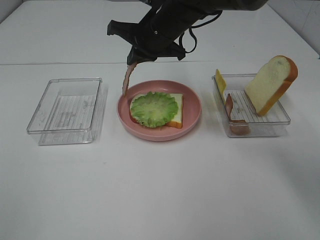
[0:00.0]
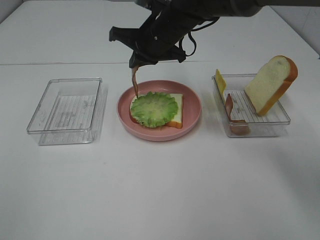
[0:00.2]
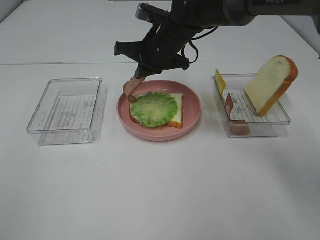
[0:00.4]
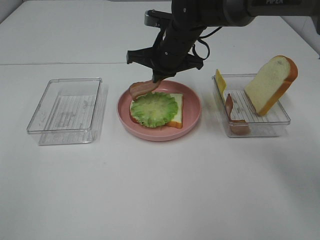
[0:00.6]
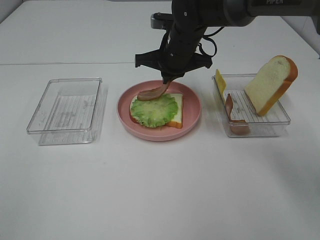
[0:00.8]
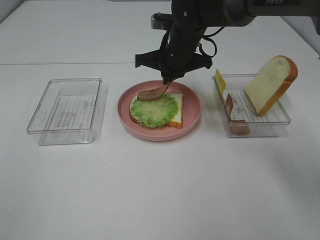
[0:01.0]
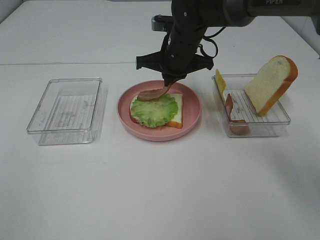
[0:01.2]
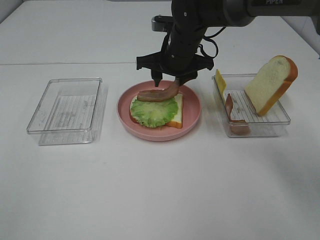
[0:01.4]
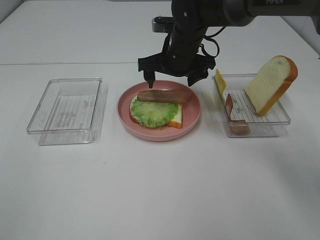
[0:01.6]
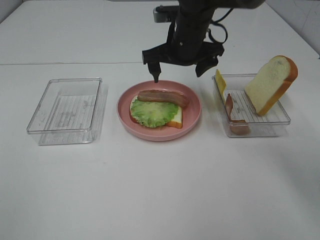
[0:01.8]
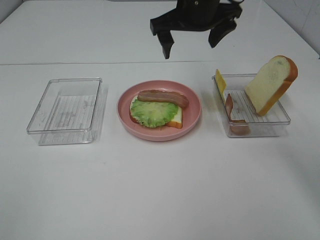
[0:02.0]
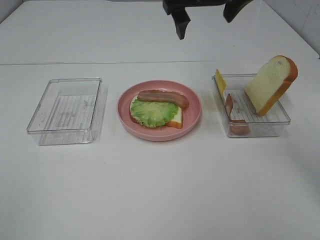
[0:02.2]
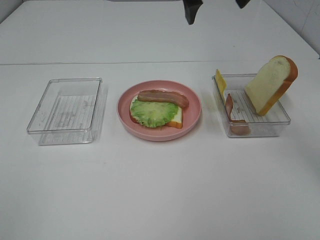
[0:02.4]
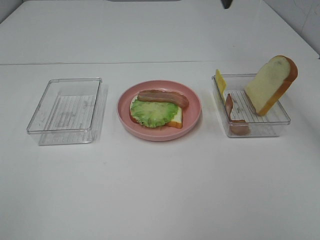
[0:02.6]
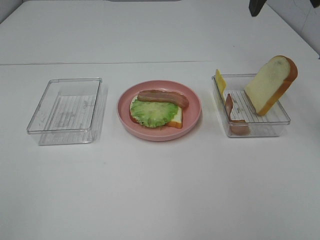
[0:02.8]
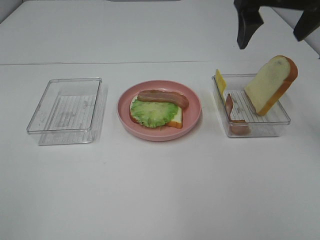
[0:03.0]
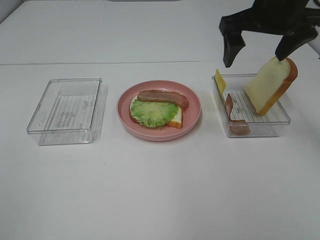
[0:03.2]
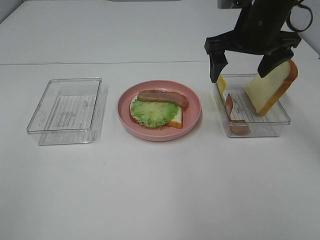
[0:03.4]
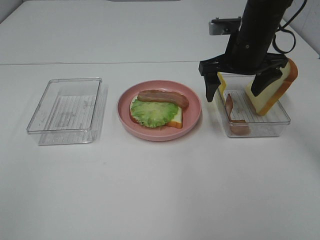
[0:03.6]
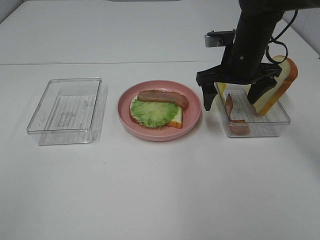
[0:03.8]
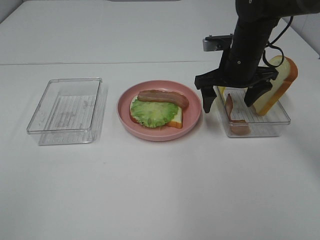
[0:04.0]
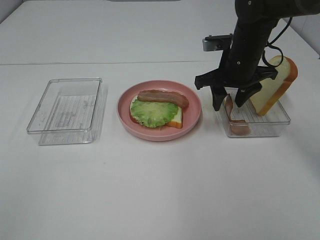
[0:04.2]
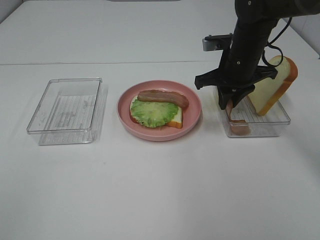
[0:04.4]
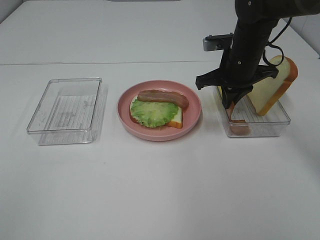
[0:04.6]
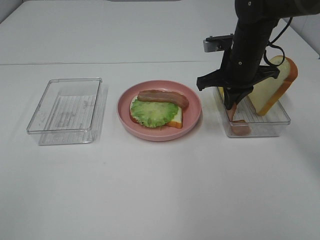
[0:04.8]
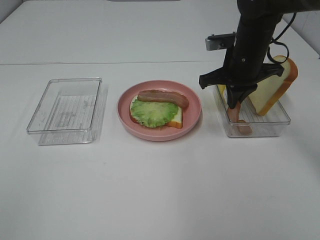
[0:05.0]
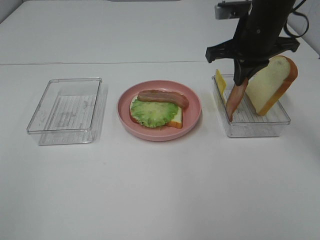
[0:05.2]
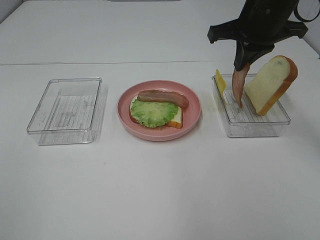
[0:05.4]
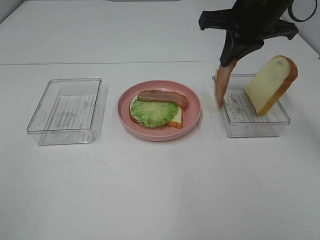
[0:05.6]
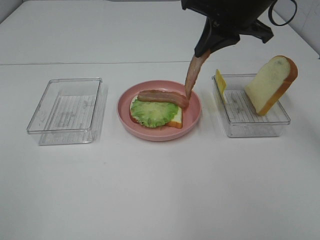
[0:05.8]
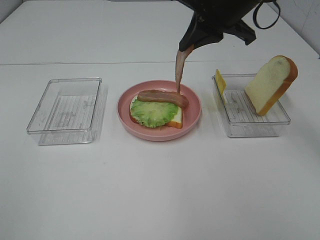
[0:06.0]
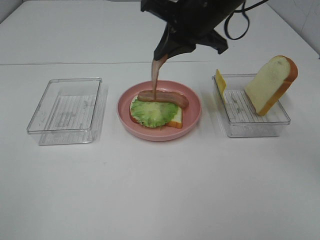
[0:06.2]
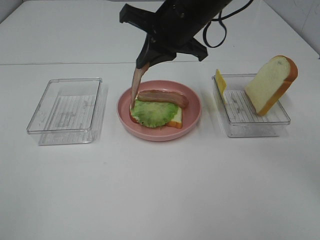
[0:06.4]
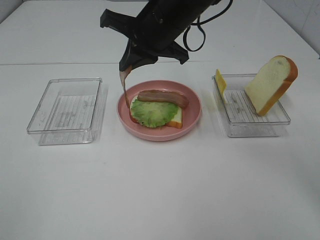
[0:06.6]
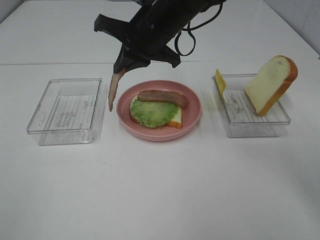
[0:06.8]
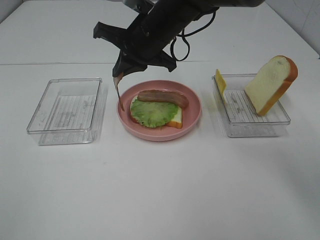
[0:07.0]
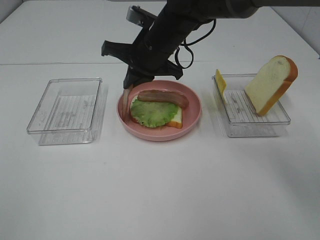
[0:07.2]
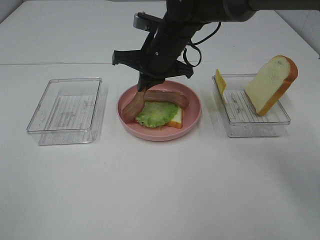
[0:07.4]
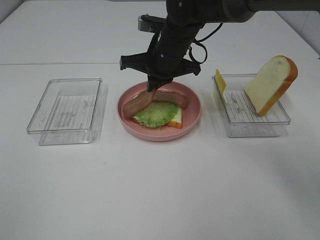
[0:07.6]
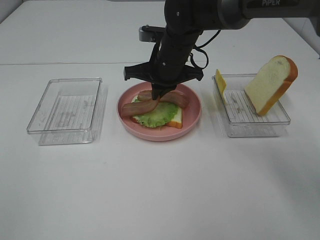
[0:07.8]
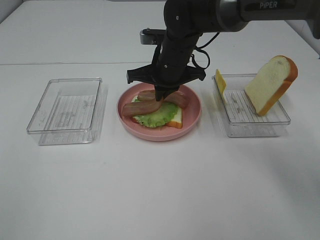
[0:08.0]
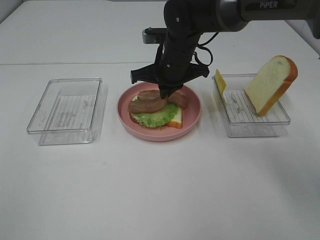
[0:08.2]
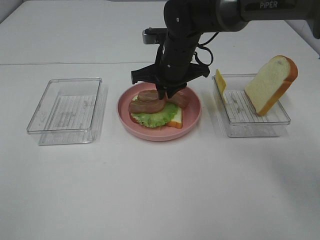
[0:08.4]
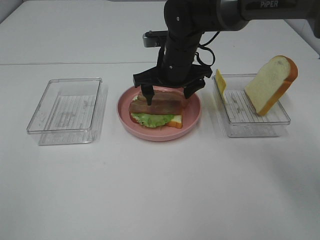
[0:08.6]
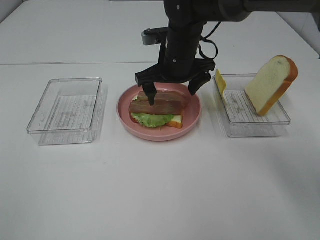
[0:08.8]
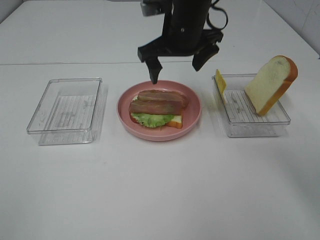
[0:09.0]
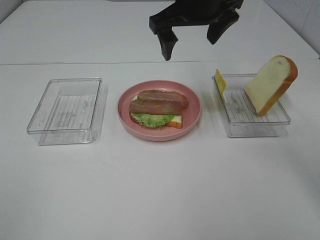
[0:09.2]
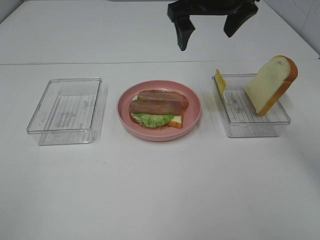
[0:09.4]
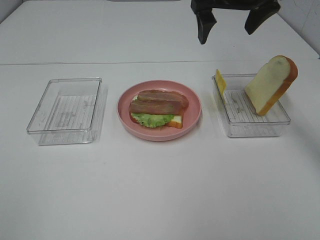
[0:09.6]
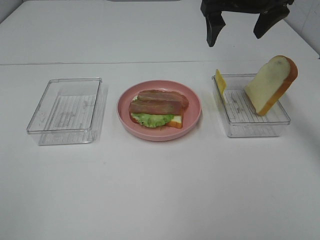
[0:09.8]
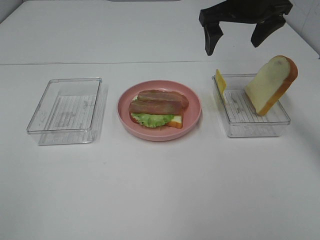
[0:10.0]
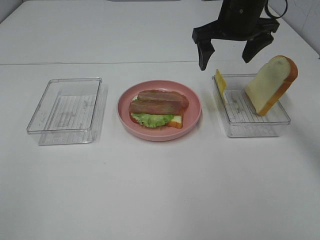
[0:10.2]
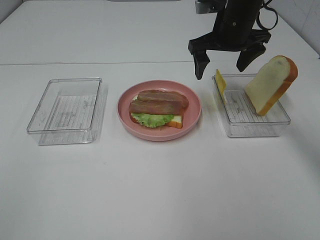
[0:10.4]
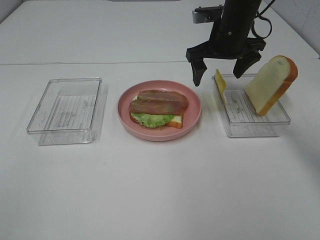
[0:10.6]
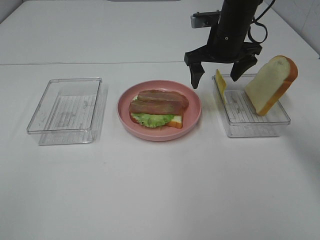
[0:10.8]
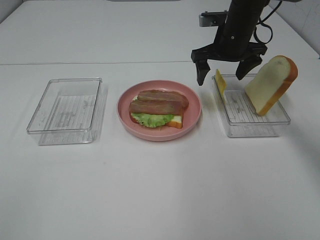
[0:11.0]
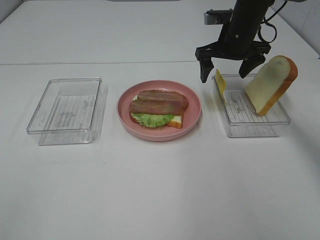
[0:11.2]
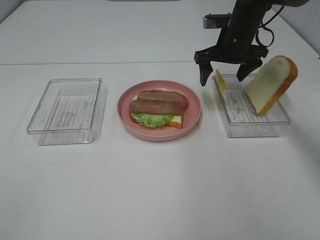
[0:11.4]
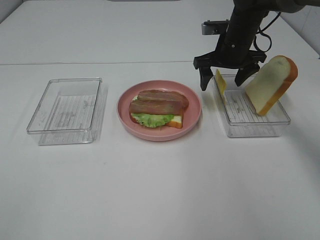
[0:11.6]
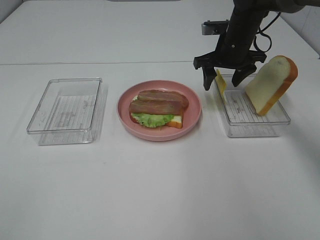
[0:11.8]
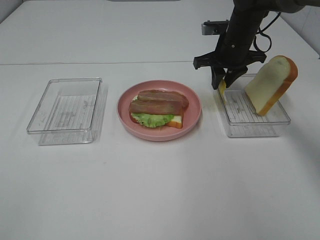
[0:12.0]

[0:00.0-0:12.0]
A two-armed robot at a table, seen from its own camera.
Task of the whole recording: Make sandwiches.
Step, 0:01.8 to 0:04.8: Right hand:grab the bacon.
Step, 0:05.0 to 0:09.4: Right hand:place bacon on bacon.
0:00.0 to 0:01.6: The right gripper ends up some 5 cm from where it was, and opens up.
0:01.6 to 0:03.0: The right gripper shifts some 25 cm upward, to the right and backward.
0:03.0 to 0:04.4: The right gripper shifts approximately 15 cm downward, and closes up.
0:04.4 to 0:06.0: The right gripper travels upward by about 10 cm.
0:06.0 to 0:07.6: The right gripper travels downward and to the left by roughly 15 cm.
0:07.6 to 0:09.0: The right gripper heads upward, covering approximately 5 cm, and opens up.
0:09.0 to 0:10.4: The right gripper heads to the right, covering some 10 cm.
0:10.4 to 0:12.0: The right gripper shifts some 5 cm downward, and closes its fingers.

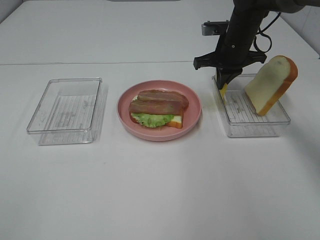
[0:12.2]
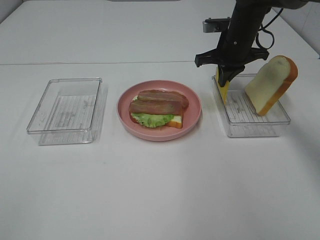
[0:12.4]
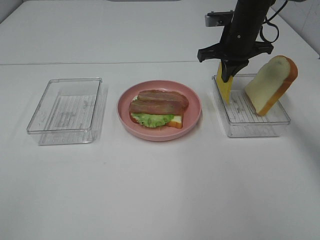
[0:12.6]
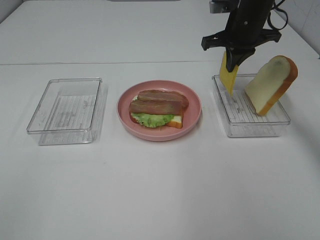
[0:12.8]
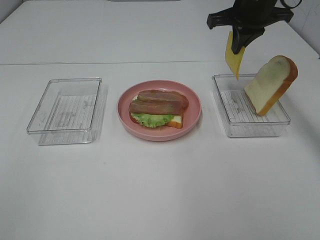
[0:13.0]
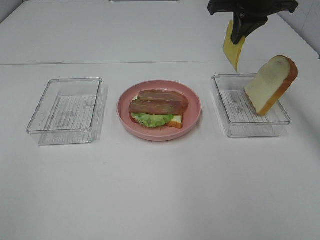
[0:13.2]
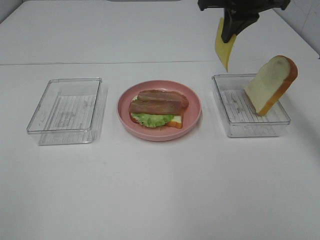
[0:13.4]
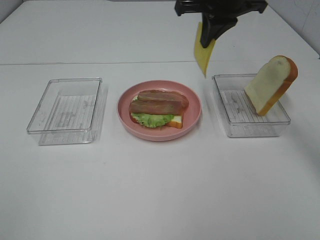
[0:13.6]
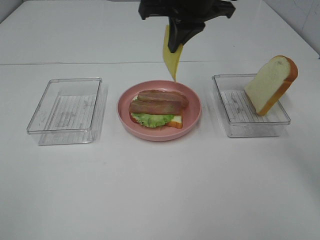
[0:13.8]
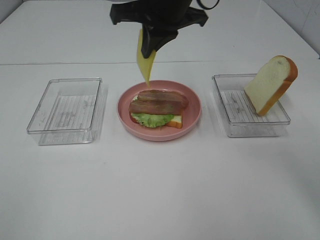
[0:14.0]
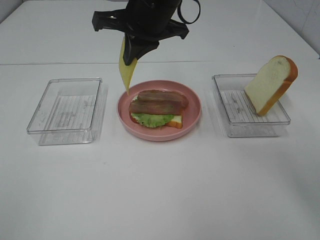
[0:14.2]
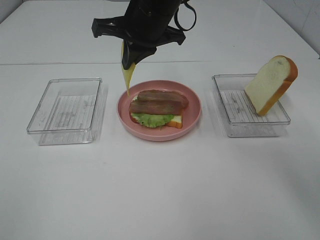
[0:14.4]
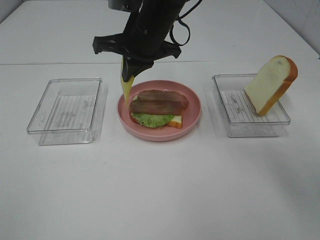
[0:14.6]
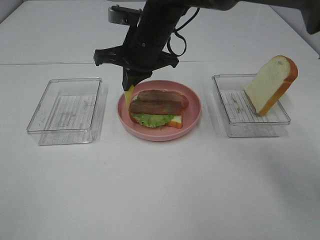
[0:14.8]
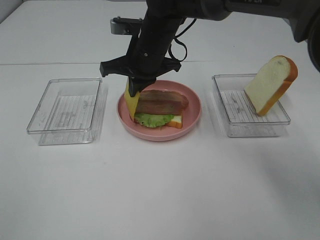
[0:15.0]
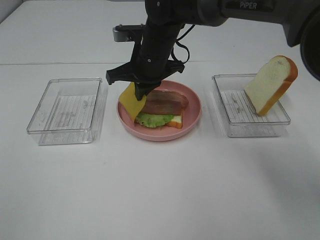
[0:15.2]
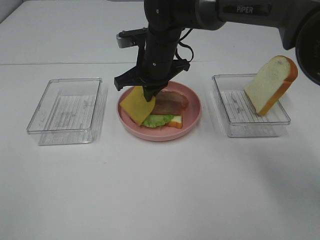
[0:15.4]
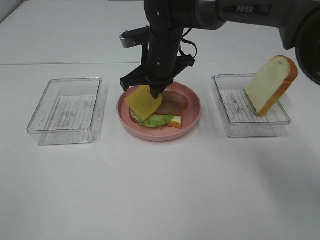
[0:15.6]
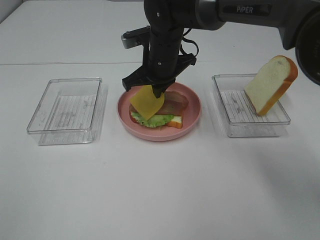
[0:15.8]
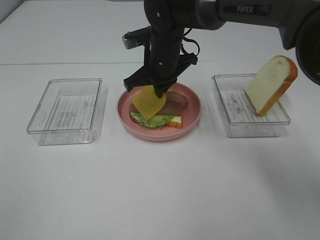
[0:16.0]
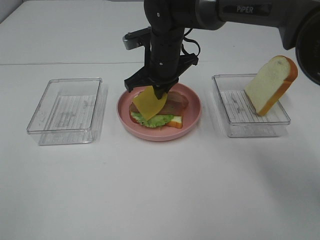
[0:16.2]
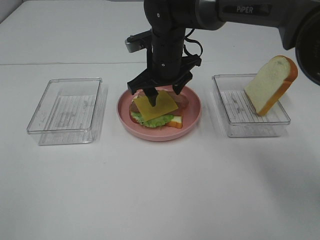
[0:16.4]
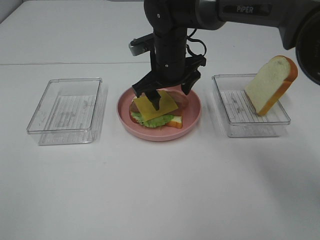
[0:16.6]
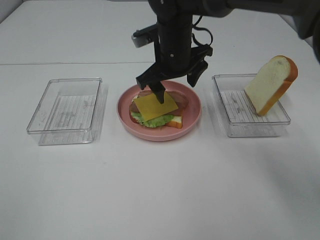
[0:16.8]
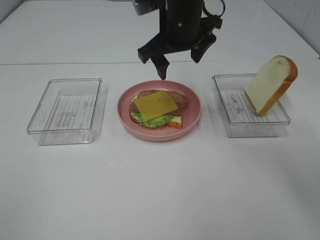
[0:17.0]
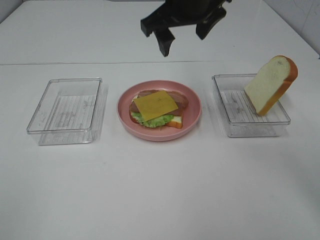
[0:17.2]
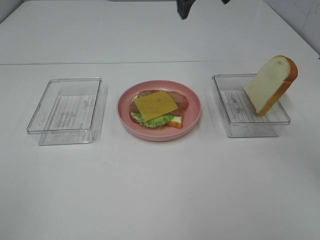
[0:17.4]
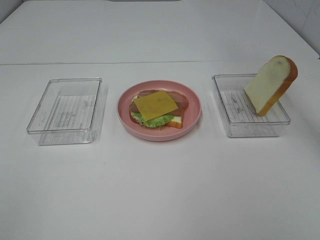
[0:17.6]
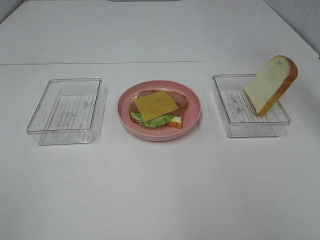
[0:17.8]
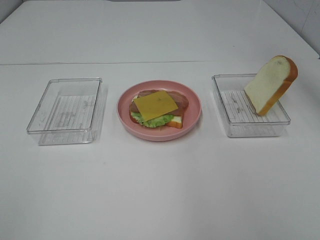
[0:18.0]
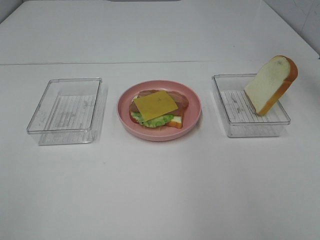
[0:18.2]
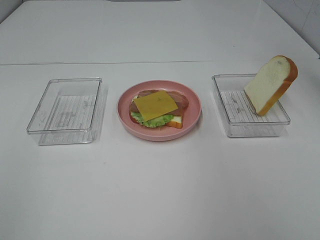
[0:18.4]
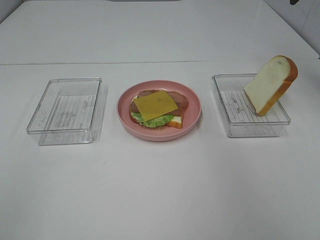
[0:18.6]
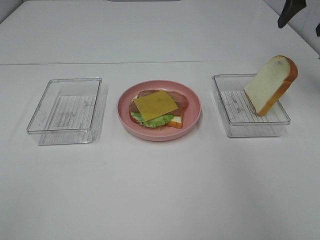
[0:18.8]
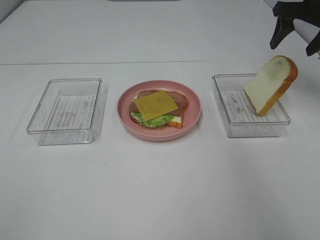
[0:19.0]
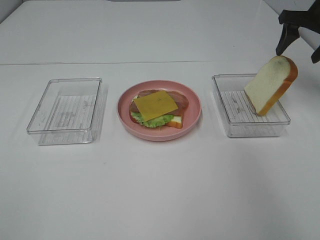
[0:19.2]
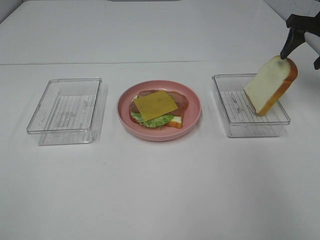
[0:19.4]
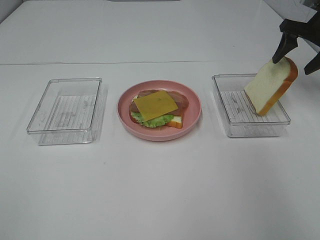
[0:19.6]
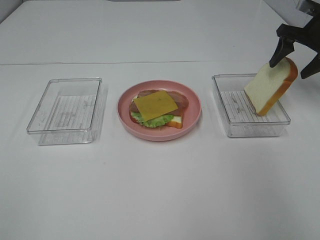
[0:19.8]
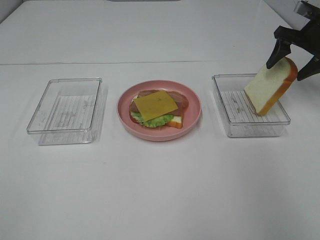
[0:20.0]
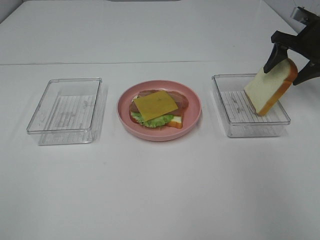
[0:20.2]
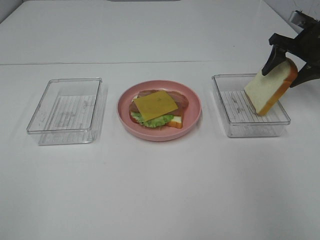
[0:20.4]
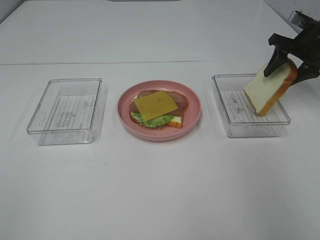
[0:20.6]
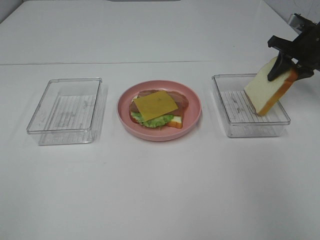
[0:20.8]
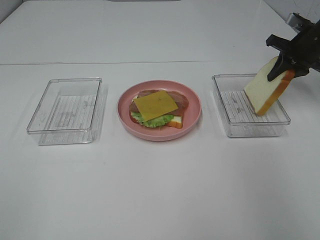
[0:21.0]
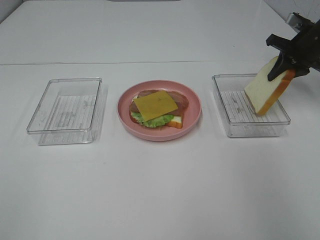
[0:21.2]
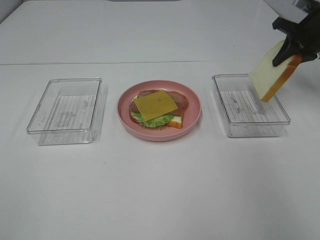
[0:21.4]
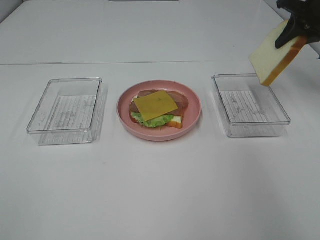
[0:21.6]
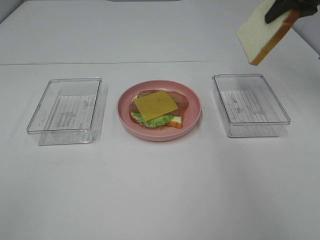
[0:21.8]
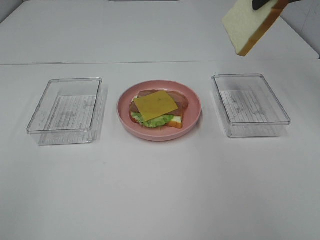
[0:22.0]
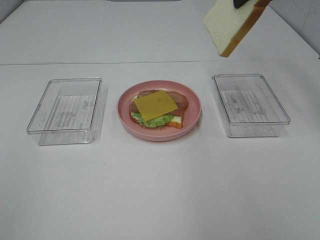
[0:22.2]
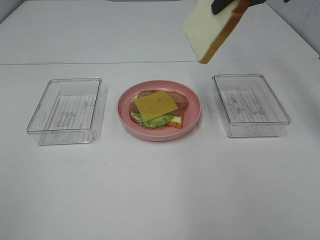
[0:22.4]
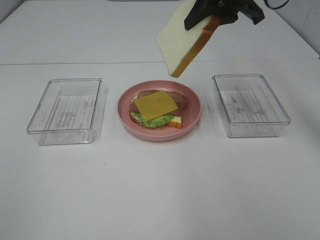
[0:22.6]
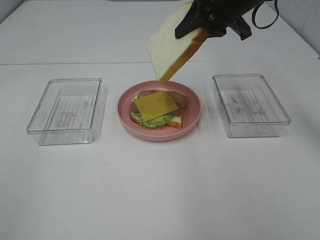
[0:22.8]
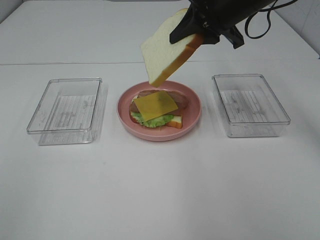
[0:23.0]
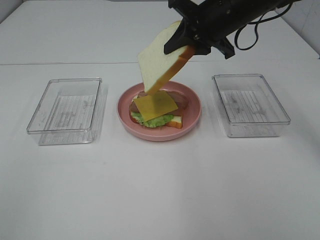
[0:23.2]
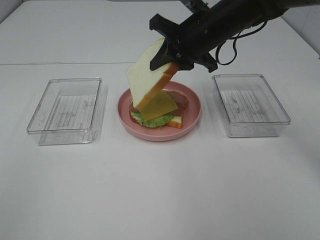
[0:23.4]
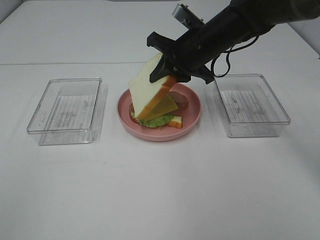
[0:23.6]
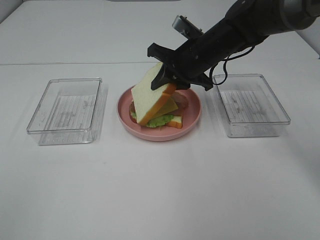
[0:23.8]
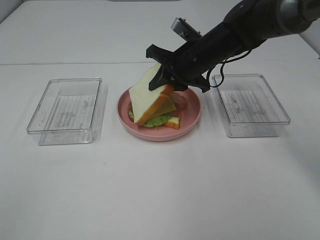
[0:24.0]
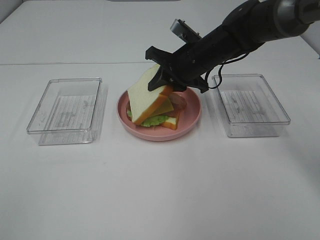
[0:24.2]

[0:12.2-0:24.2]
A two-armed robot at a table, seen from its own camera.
Task of the whole recording: Make sandwiches.
Step, 0:12.4 to 0:16.8: Right hand:place the cheese slice on top of the bacon.
Step, 0:17.0 to 0:21.2: Right hand:grab the bread slice.
0:12.2 to 0:13.8: The right gripper moves upward, to the left and backward, approximately 20 cm.
0:13.8 to 0:15.2: The right gripper heads downward and to the left, covering about 15 cm.
0:15.2 to 0:16.6: The right gripper opens its fingers.
0:16.6 to 0:18.2: The right gripper shifts approximately 35 cm upward and to the right.
0:18.2 to 0:19.8: The right gripper goes some 25 cm downward, to the right and forward.
0:19.8 to 0:21.2: The right gripper closes up.
0:21.2 to 0:22.6: The right gripper heads to the left, upward and backward, covering approximately 25 cm.
0:22.6 to 0:24.2: The right gripper is displaced downward by approximately 15 cm.
